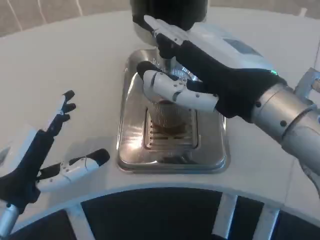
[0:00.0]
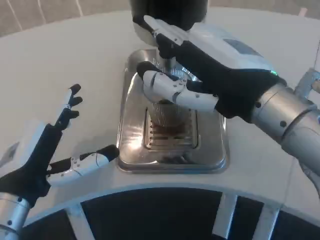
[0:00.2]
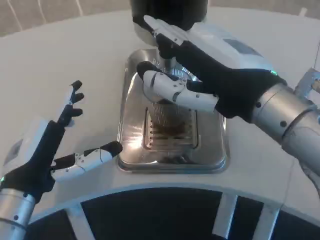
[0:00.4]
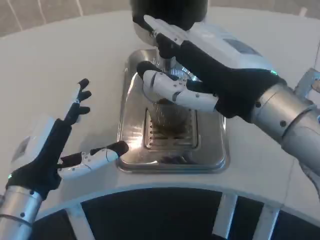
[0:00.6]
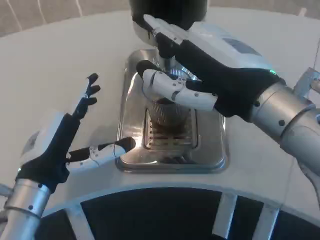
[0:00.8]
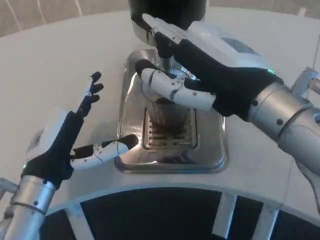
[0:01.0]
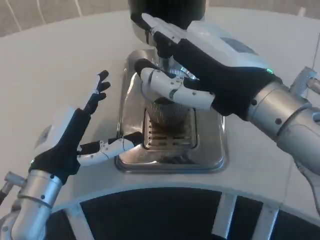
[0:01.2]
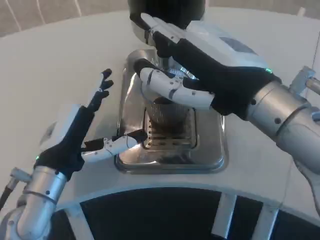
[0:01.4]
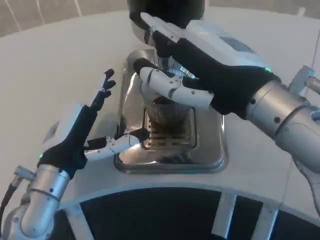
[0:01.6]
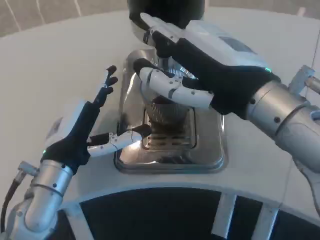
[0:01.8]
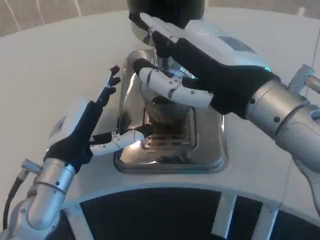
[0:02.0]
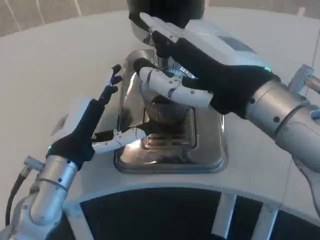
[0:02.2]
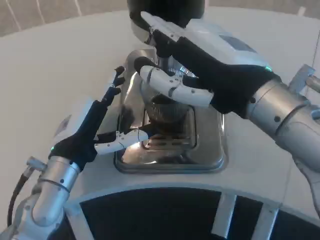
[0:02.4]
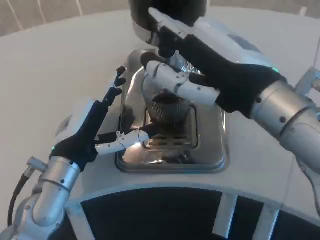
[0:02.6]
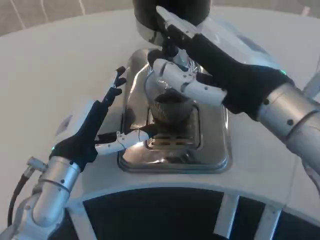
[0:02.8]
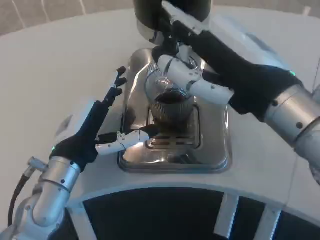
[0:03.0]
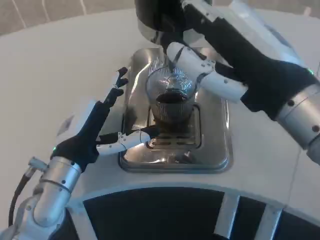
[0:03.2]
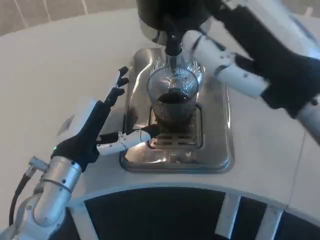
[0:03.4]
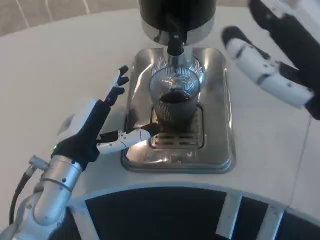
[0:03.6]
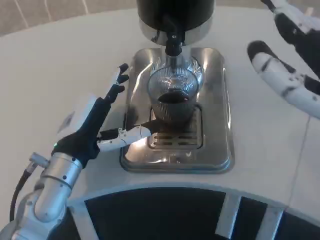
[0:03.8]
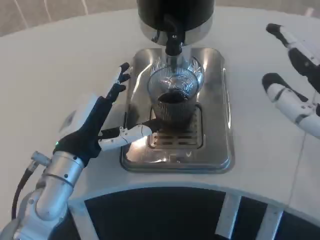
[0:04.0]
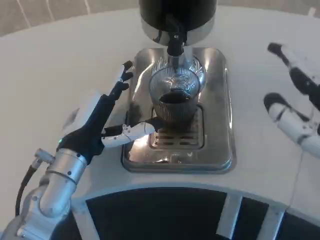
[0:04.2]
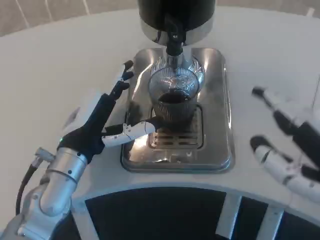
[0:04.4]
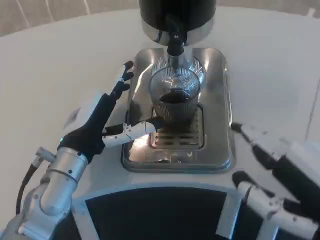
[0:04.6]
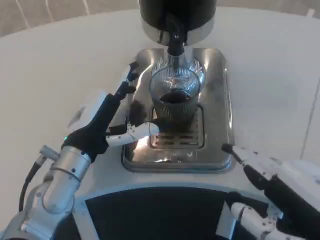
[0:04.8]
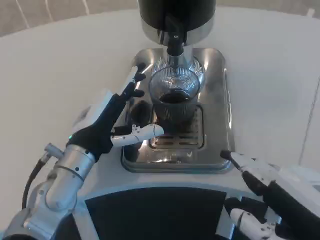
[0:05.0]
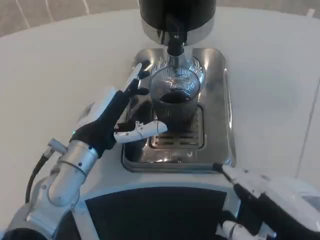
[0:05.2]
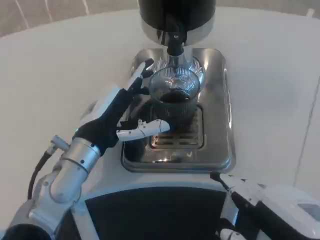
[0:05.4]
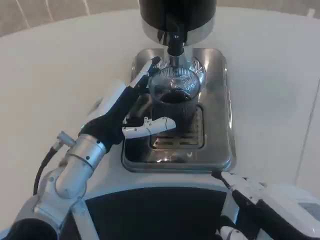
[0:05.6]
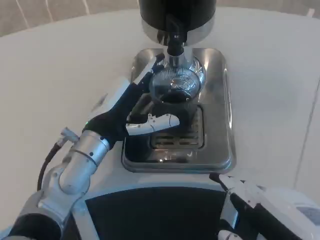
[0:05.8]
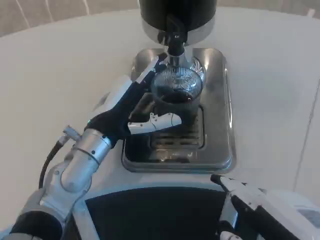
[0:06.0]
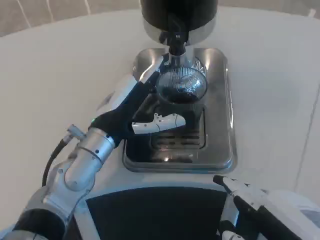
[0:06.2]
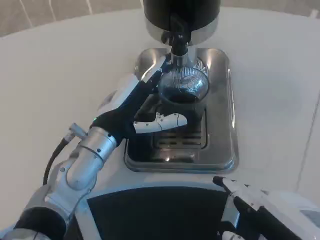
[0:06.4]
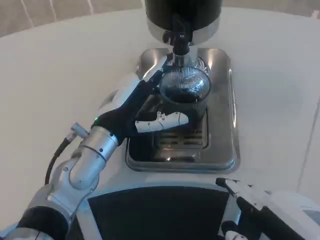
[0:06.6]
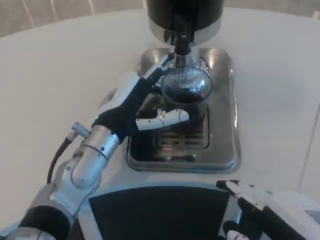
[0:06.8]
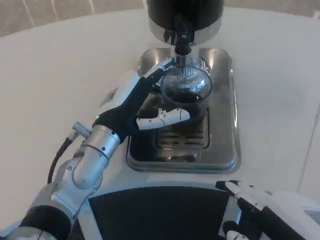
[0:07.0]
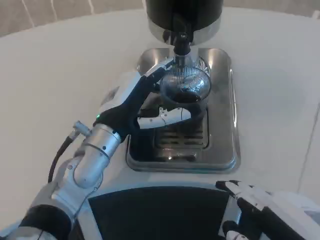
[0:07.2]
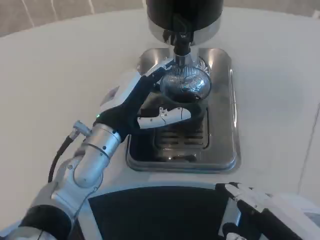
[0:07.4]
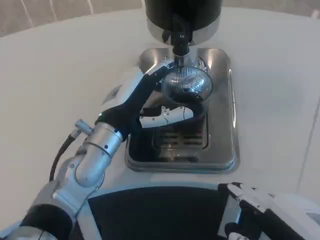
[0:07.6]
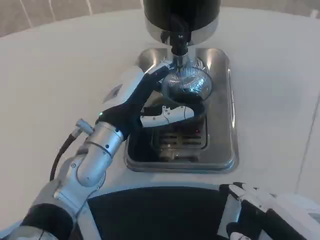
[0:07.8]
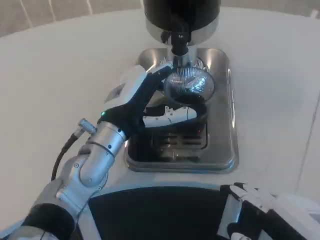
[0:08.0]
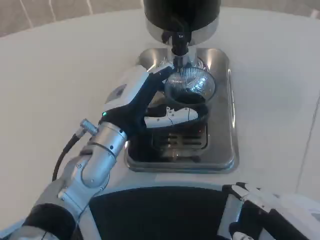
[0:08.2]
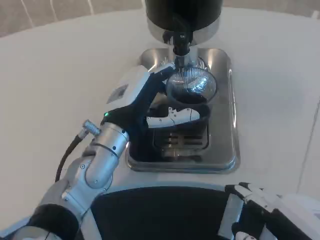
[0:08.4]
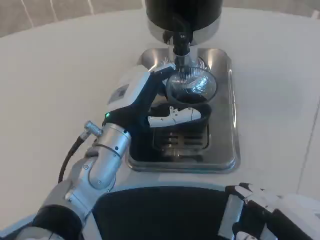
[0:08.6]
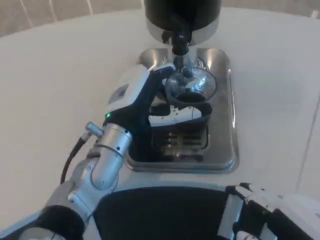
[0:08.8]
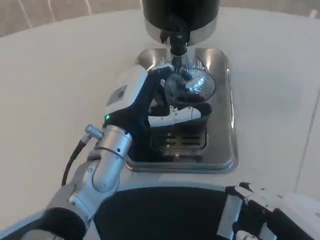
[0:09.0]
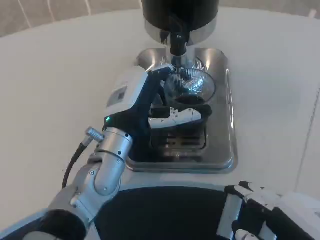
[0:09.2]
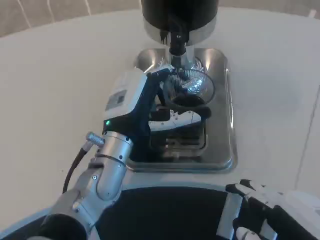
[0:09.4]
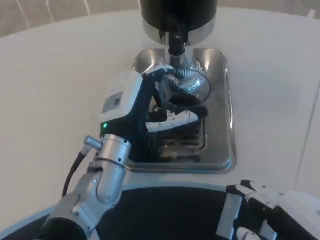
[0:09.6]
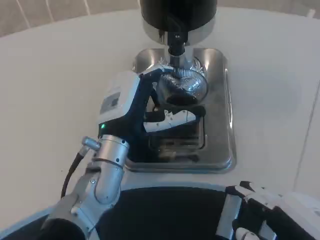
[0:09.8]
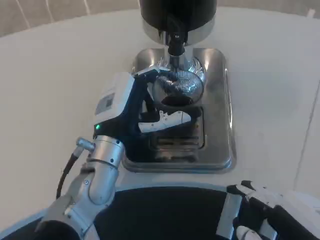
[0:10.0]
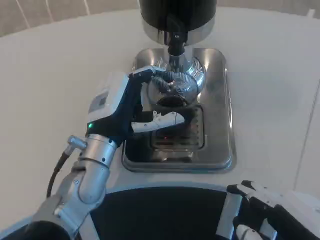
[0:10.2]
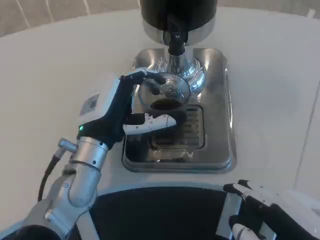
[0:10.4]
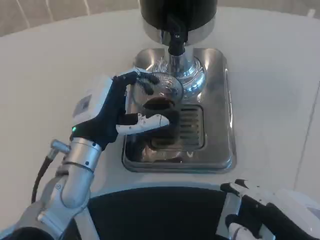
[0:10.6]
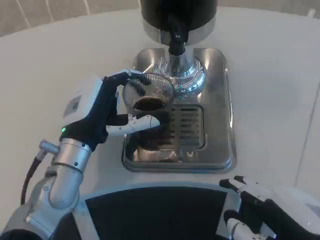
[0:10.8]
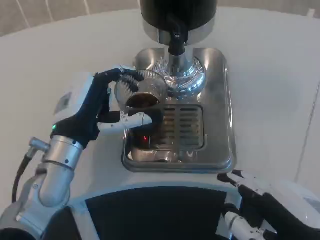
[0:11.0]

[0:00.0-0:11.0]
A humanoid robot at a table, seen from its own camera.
Task of the whole recording: Grasp the cup under the faucet to collect the drink, then remove the cup.
0:00.0 to 0:01.6: The left hand heads forward, covering some 5 cm.
0:03.2 to 0:04.8: The right hand travels backward, downward and to the right by some 15 cm.
0:06.2 to 0:09.4: The hands move only a little.
0:09.4 to 0:11.0: The left hand is displaced to the left by approximately 5 cm.

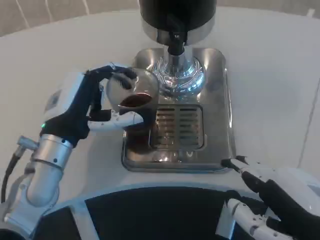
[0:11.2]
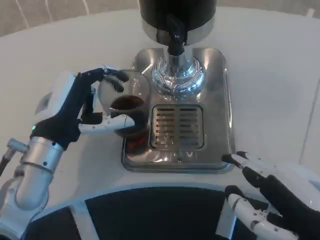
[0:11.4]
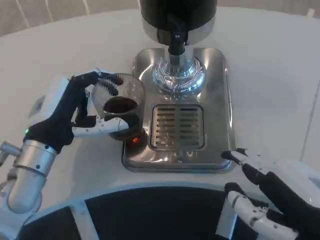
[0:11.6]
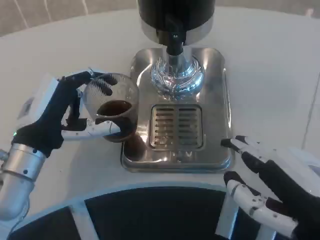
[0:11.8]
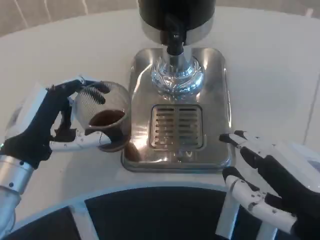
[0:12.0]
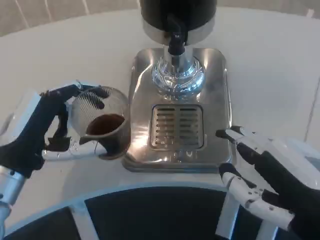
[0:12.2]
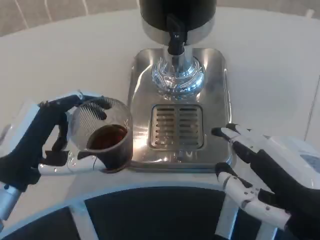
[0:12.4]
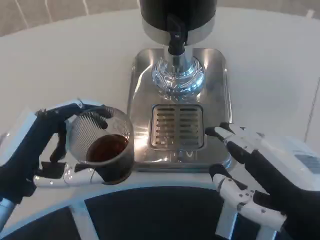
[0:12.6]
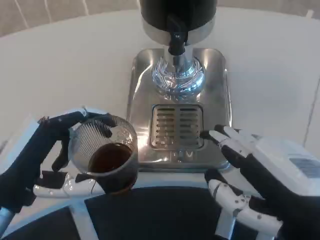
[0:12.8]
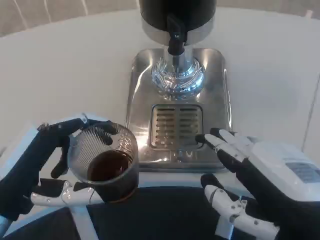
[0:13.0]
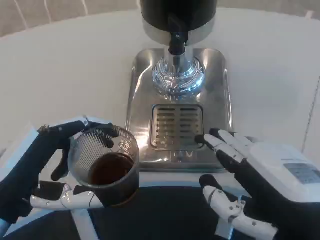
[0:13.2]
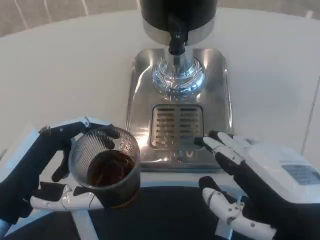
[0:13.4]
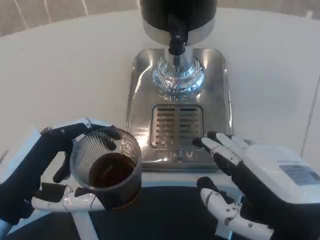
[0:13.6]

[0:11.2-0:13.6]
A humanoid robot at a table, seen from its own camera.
Task of the whole recording: Grasp the cup under the faucet to collect the drink, then remove the cup.
0:11.2 to 0:12.4: The left hand goes approximately 10 cm backward and to the left.

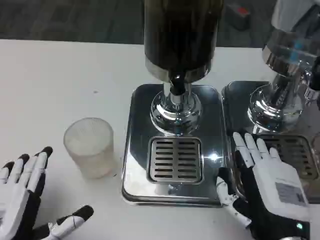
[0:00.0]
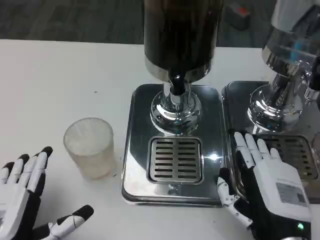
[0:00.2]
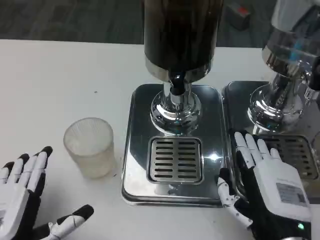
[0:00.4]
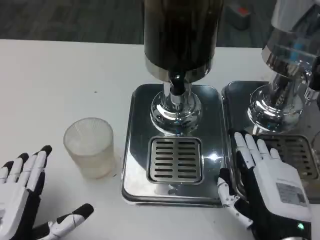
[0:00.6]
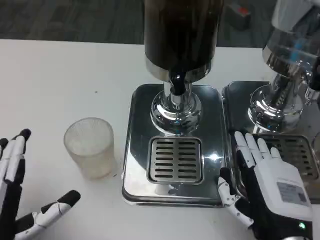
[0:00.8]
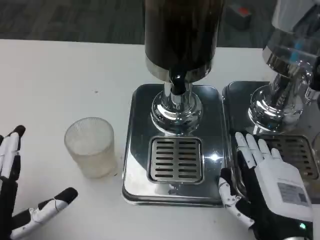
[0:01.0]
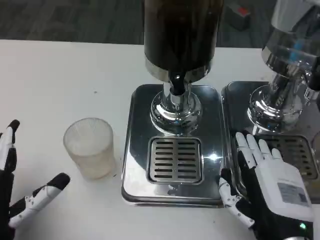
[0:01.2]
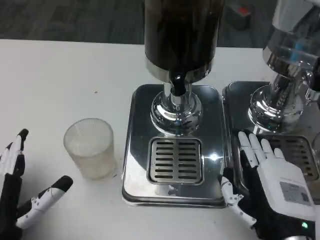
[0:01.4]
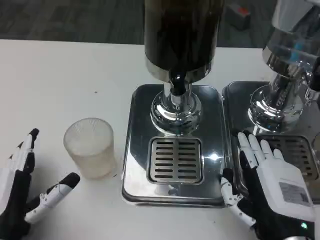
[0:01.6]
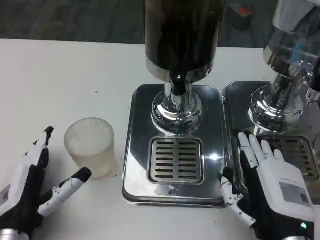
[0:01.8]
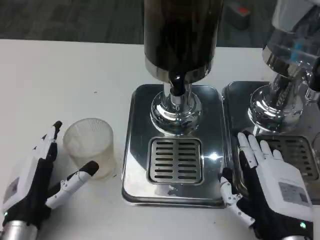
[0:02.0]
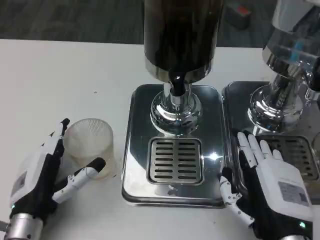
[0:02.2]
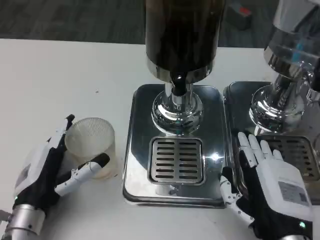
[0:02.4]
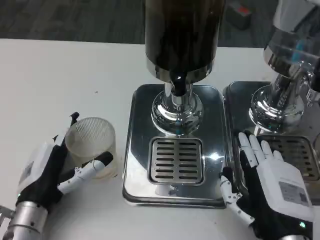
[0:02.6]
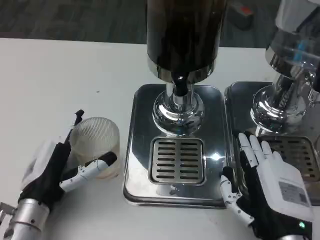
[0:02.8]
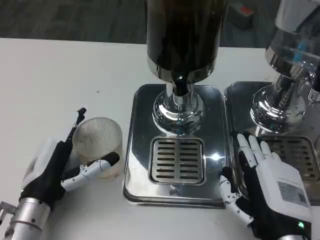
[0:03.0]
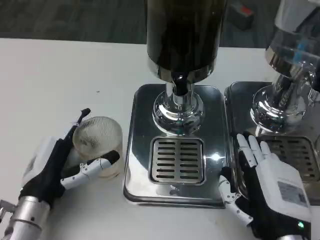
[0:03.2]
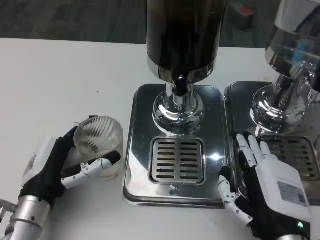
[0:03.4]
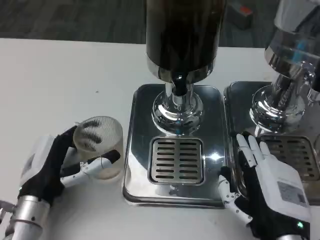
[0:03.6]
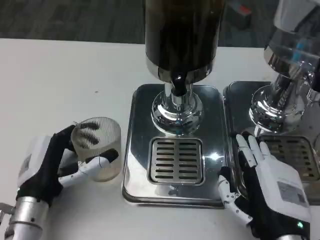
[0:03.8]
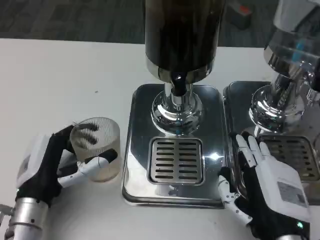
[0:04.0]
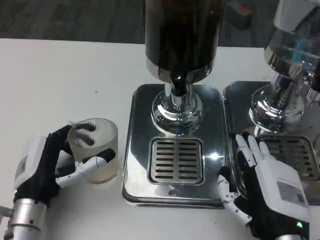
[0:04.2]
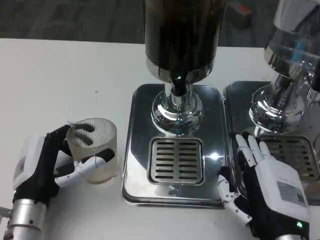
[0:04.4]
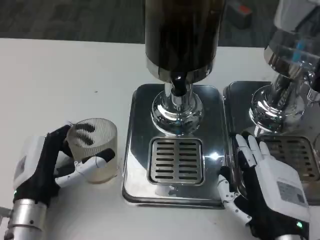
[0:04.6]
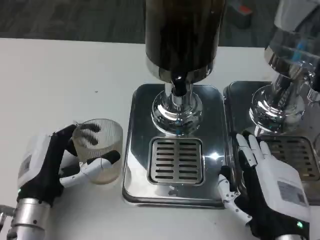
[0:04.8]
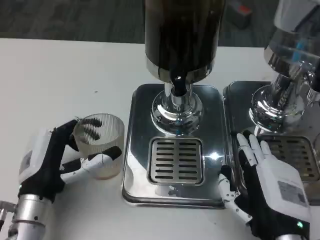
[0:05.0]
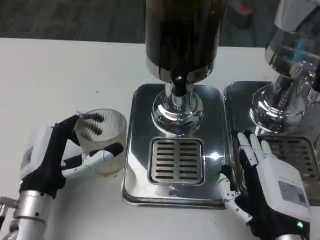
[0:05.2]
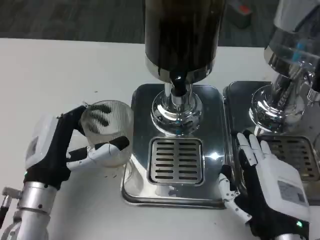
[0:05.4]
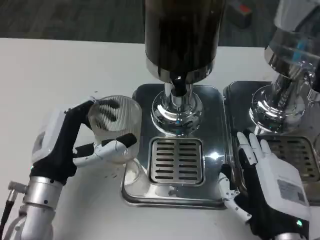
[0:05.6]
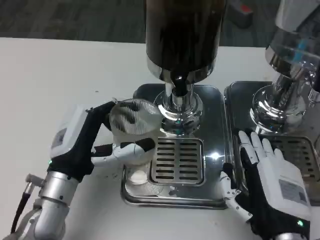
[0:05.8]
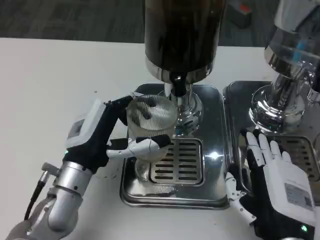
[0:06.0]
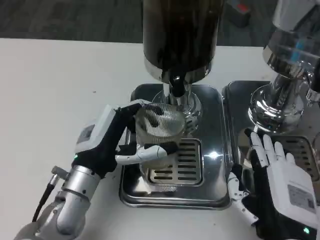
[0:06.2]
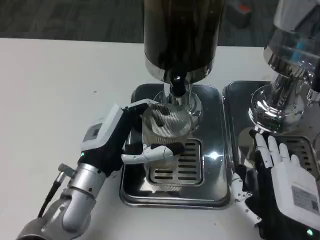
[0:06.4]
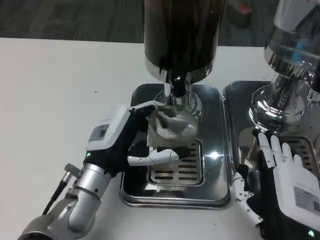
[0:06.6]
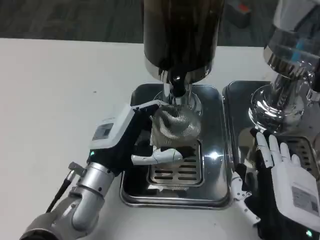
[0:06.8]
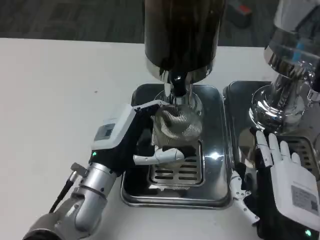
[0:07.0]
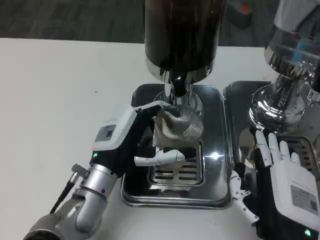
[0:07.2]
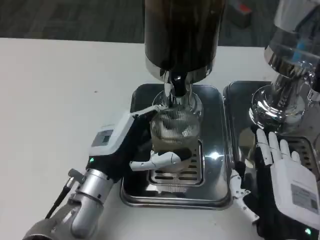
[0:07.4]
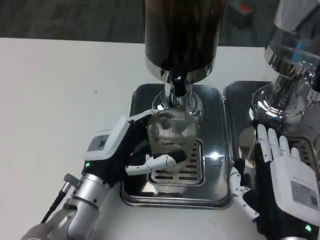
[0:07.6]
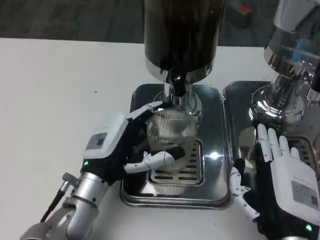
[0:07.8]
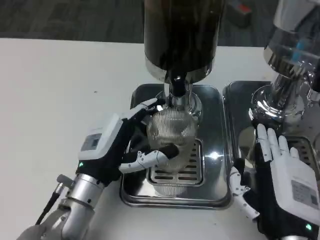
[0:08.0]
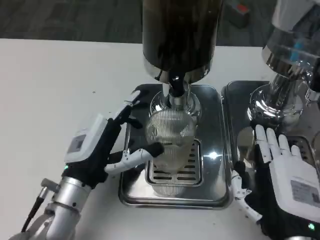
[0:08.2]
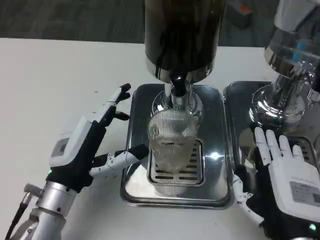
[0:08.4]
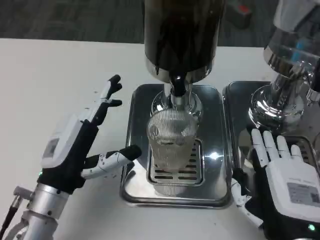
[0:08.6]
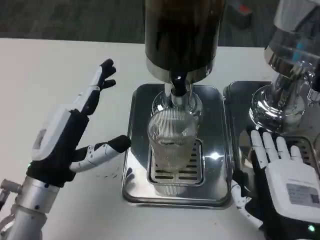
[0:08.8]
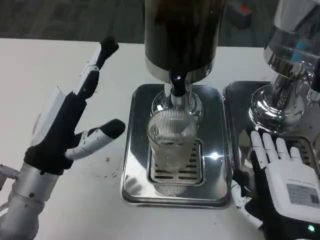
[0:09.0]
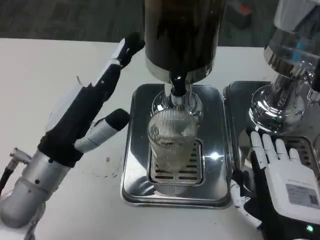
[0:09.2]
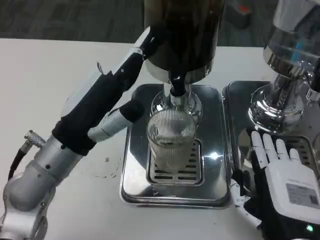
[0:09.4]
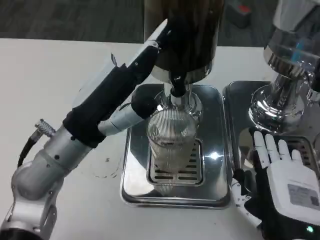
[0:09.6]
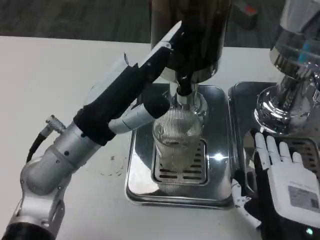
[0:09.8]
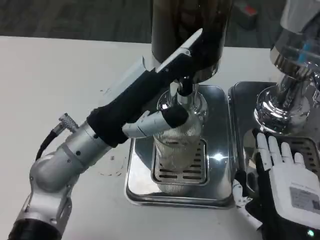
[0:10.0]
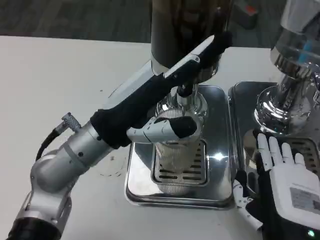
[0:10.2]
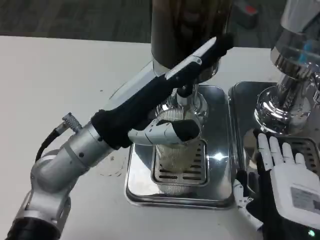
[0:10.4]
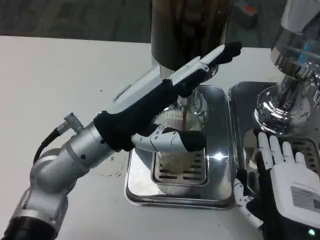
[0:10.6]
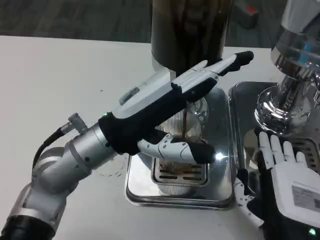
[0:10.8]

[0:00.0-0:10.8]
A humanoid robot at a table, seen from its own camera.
Task of the whole recording: Grasp the cup under the faucet to collect the drink, then remove the cup.
0:00.0 to 0:01.6: The left hand ends up roughly 5 cm from where it was.
0:01.6 to 0:03.0: The left hand shifts roughly 5 cm forward.
0:03.0 to 0:04.6: There are only small adjustments of the hands.
0:04.6 to 0:06.2: The left hand goes roughly 5 cm to the right.
0:06.2 to 0:07.8: There are only small adjustments of the hands.
0:07.8 to 0:09.2: The left hand is displaced upward by some 10 cm.
0:09.2 to 0:10.8: The left hand heads to the right, covering approximately 5 cm.
